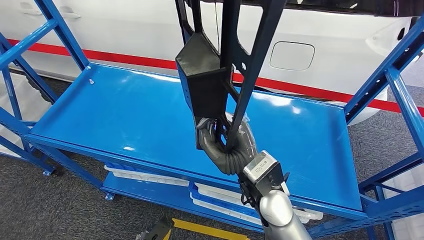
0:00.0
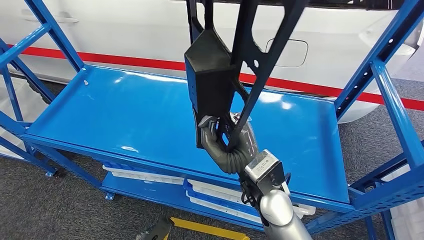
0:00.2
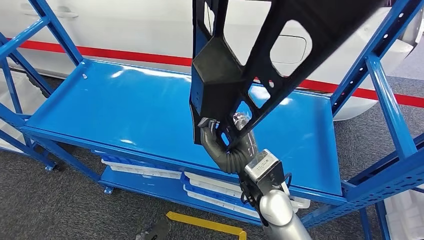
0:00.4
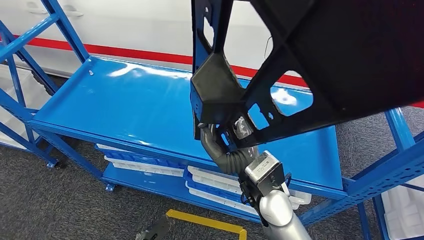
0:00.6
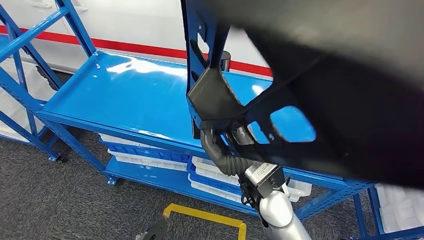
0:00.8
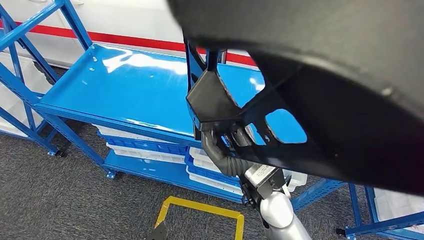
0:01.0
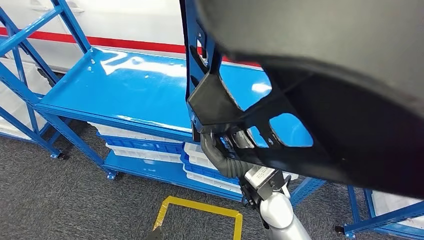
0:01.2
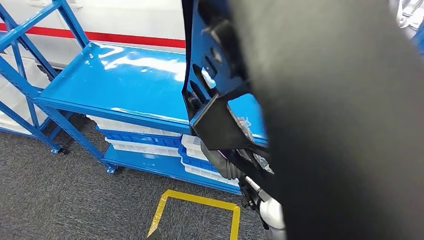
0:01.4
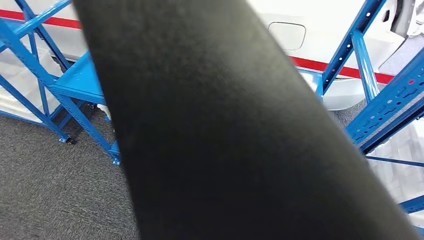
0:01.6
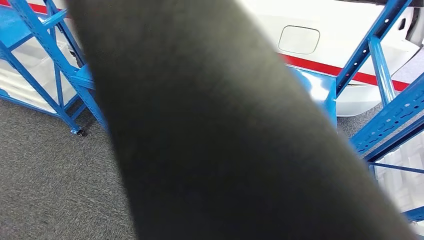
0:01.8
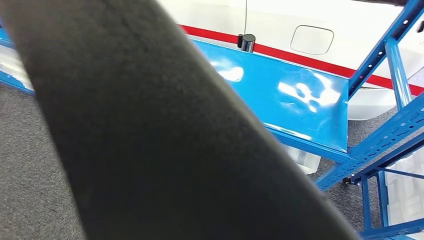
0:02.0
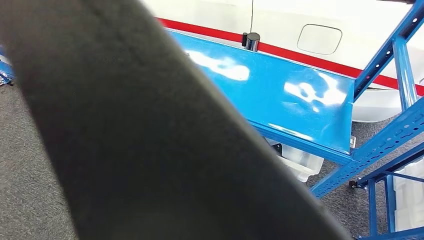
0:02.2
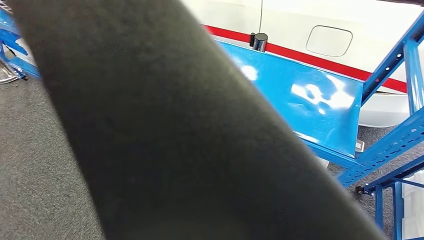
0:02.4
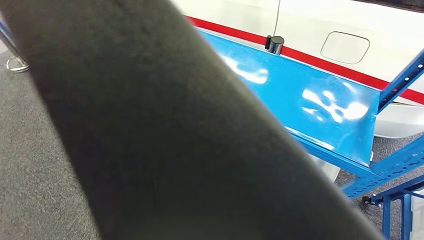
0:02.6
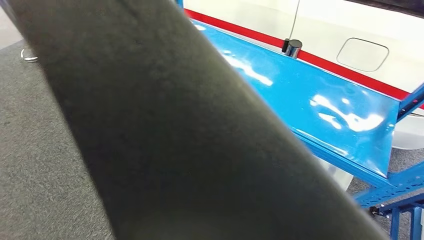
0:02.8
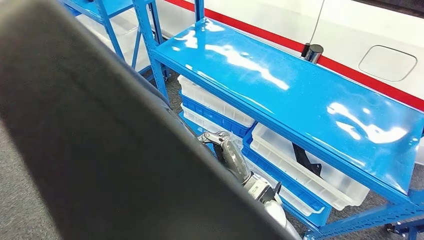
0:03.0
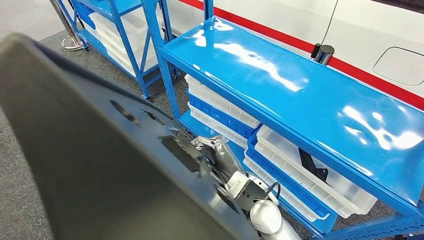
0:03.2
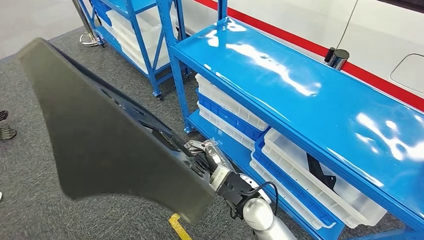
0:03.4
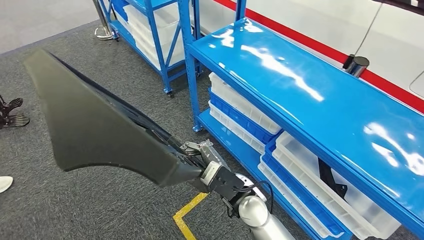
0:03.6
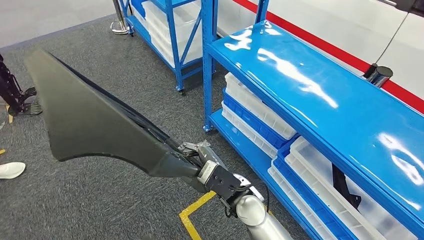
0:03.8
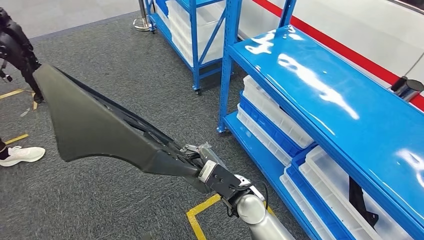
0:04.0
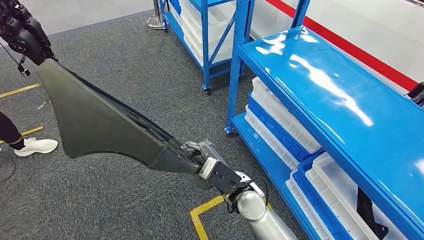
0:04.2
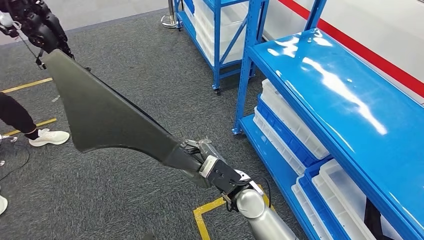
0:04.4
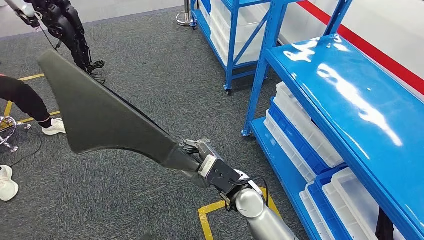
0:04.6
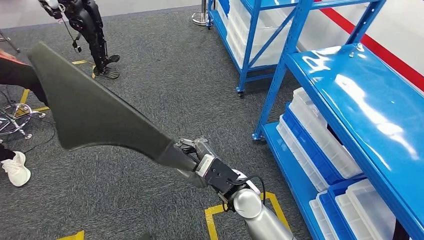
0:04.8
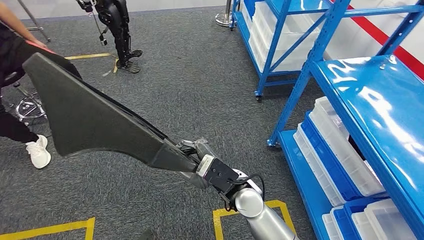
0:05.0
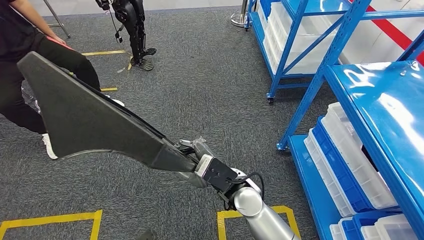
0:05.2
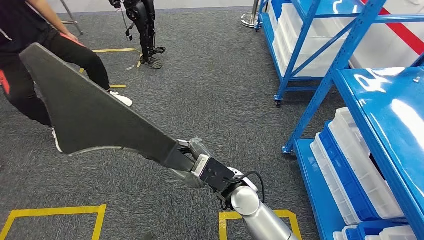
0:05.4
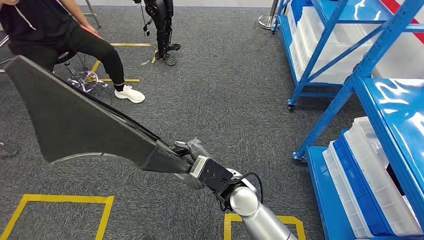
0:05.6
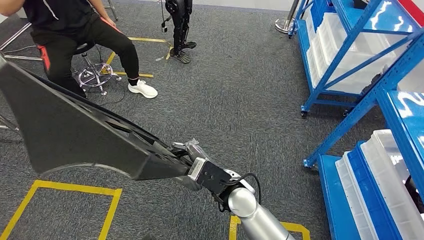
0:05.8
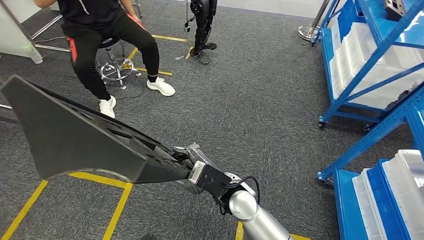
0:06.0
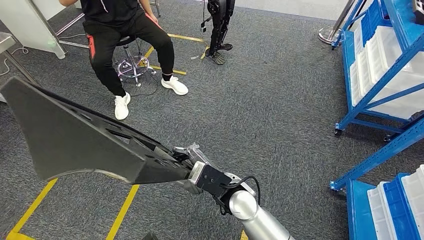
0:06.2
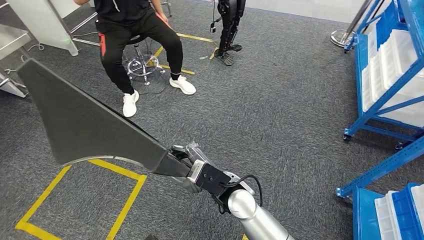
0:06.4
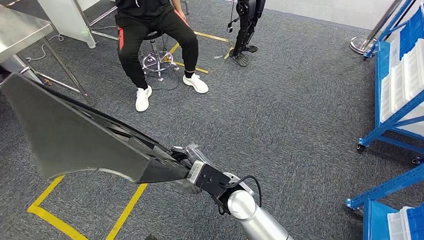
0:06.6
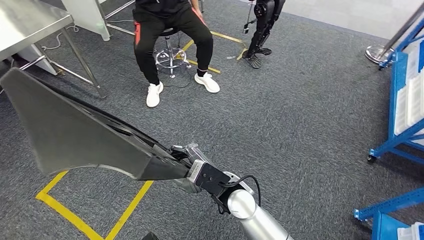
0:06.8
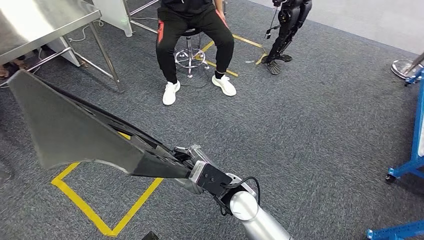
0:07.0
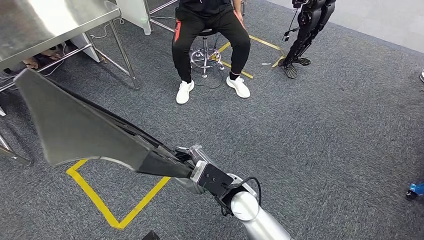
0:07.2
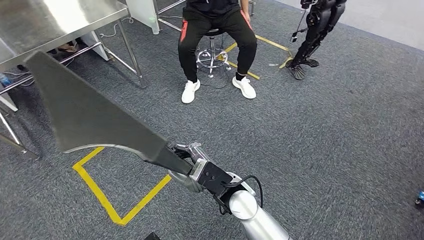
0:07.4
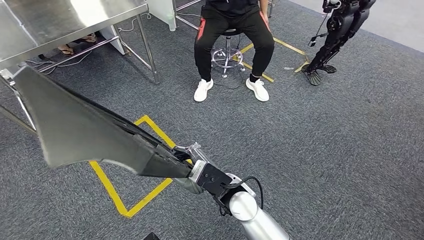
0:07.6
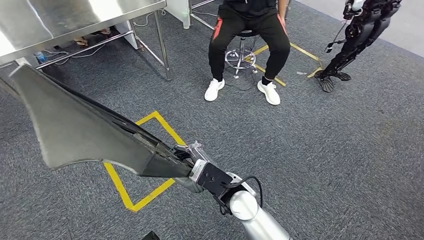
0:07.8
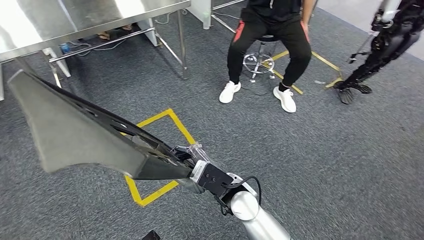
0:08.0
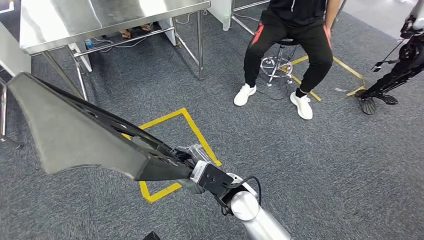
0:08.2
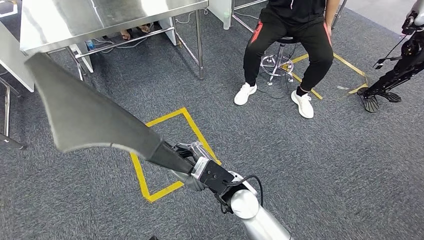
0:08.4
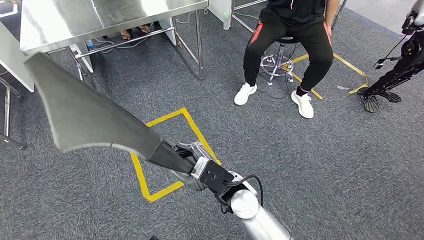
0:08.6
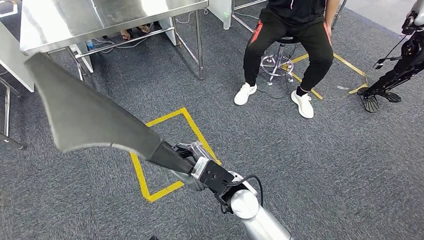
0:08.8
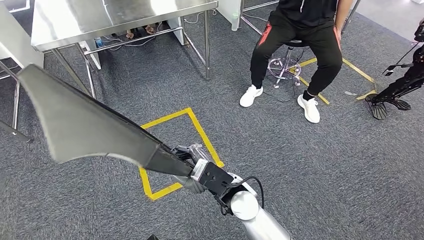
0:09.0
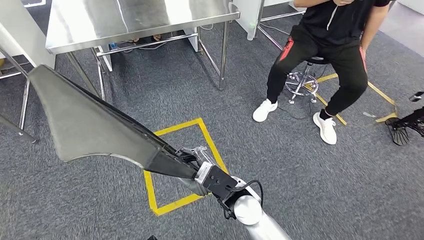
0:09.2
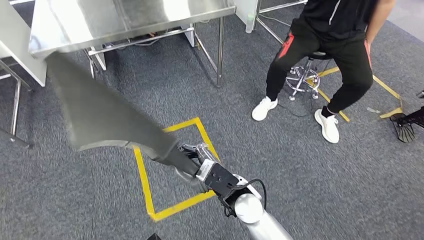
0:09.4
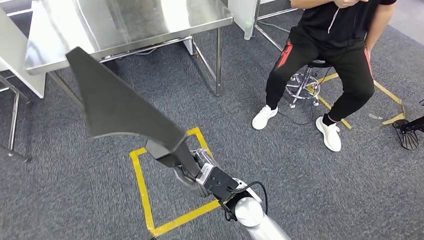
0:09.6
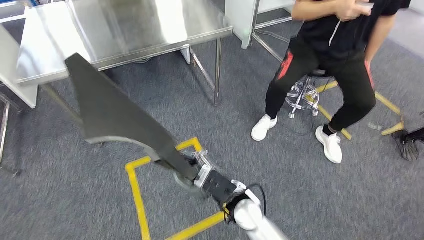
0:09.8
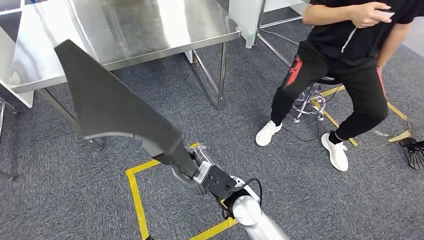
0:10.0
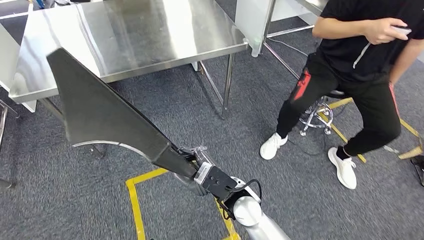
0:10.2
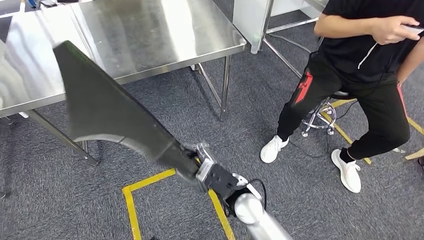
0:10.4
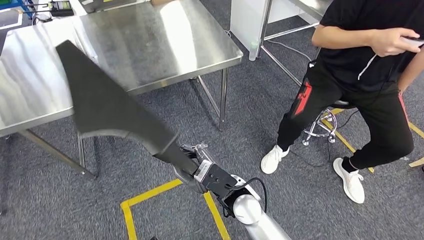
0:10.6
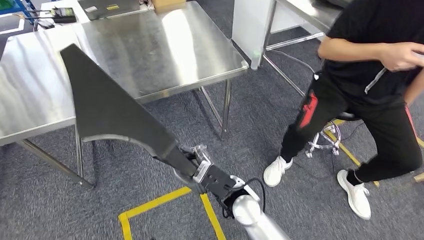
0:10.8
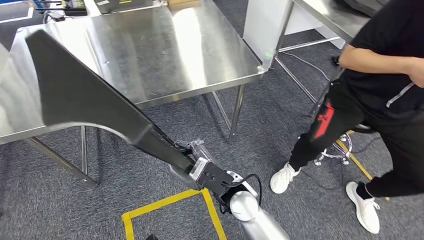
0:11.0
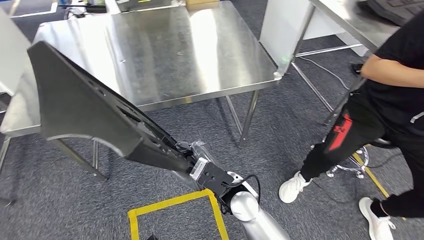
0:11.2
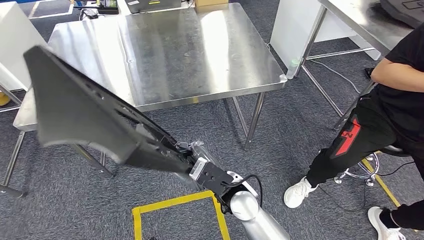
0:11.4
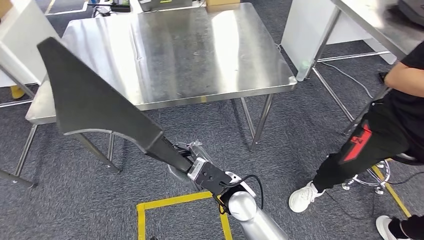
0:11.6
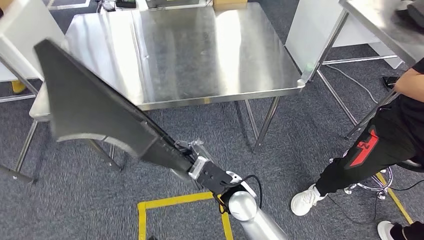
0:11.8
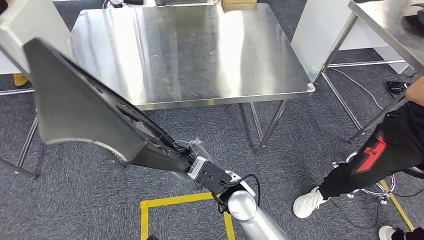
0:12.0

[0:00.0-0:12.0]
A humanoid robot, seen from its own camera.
Step, 0:00.0 to 0:02.0: Pick up the large material from the shelf.

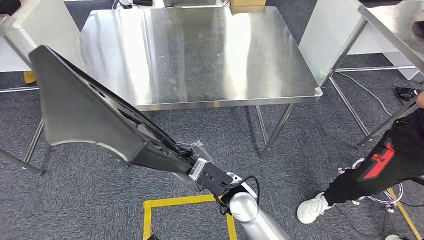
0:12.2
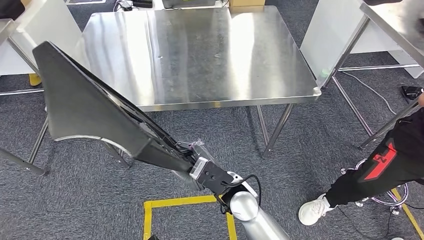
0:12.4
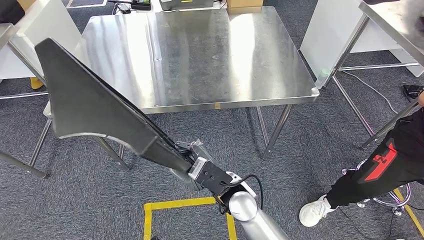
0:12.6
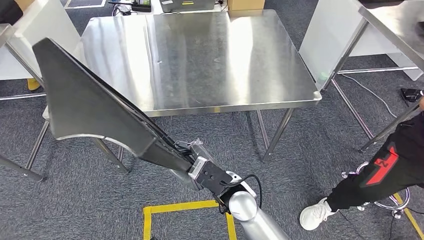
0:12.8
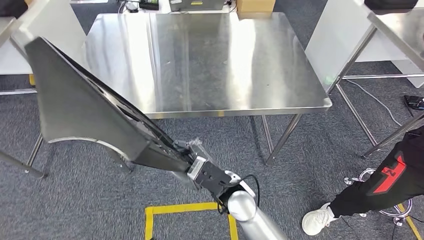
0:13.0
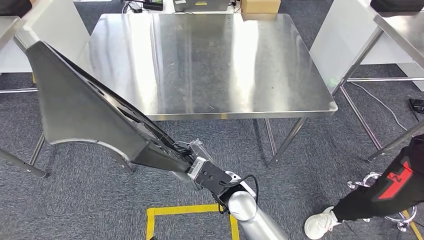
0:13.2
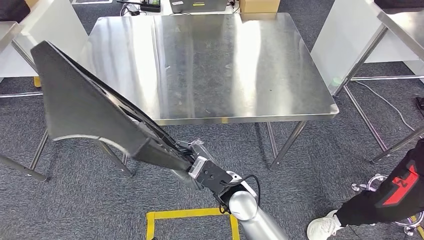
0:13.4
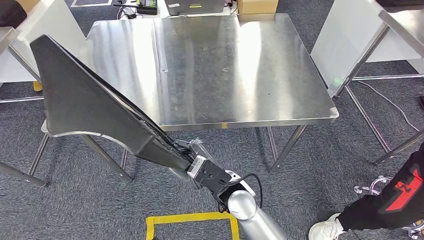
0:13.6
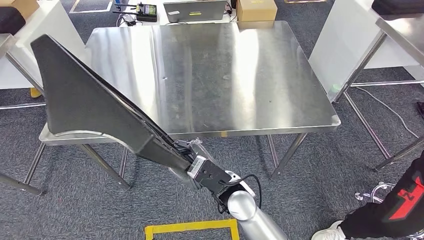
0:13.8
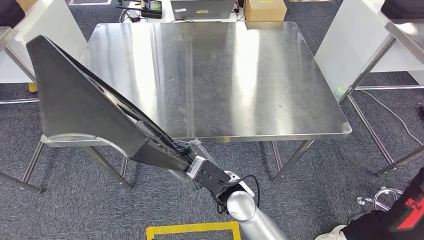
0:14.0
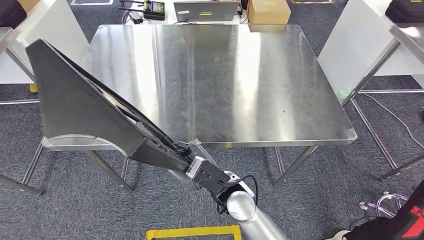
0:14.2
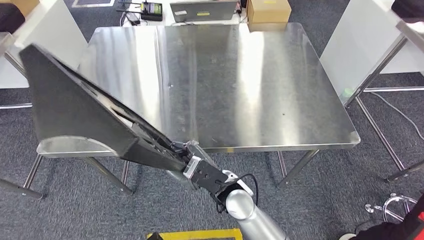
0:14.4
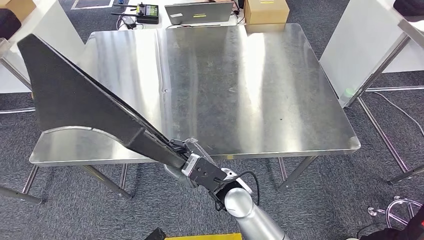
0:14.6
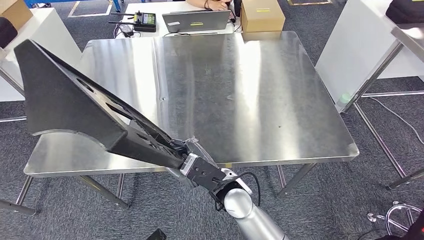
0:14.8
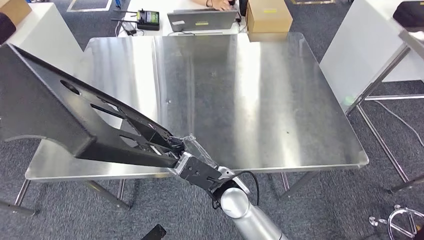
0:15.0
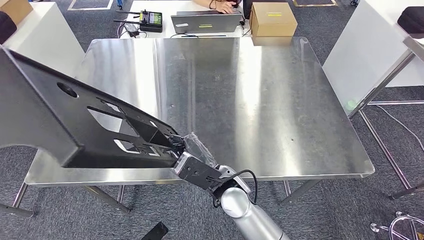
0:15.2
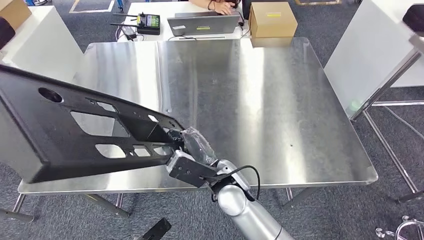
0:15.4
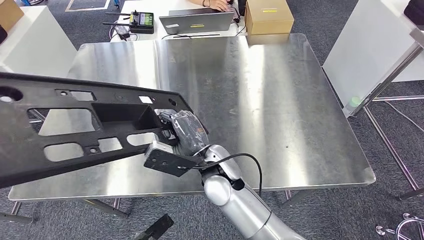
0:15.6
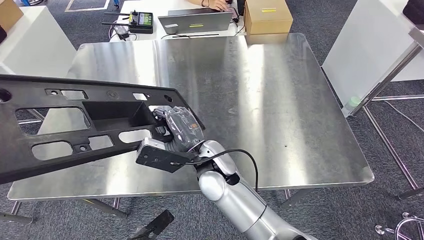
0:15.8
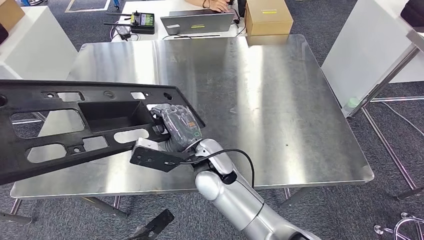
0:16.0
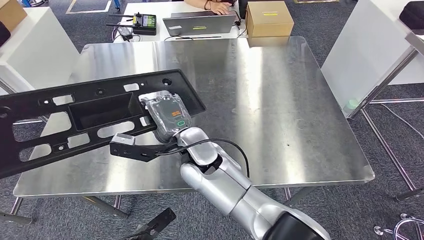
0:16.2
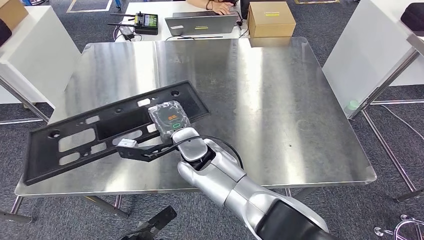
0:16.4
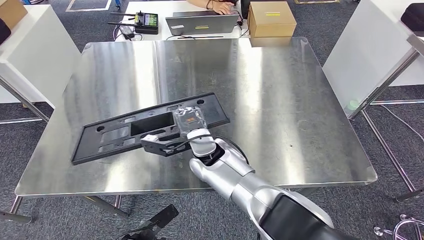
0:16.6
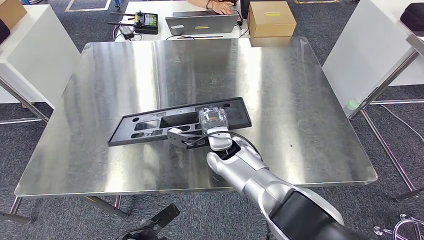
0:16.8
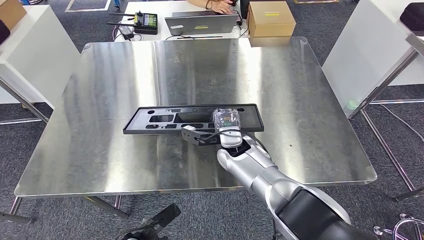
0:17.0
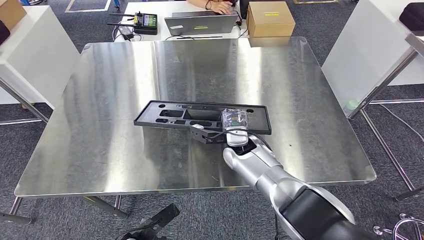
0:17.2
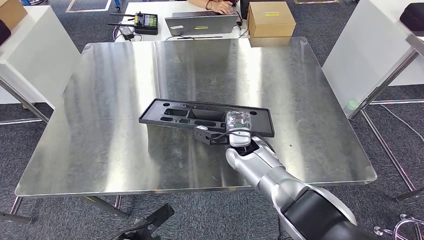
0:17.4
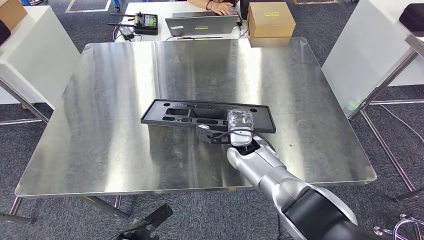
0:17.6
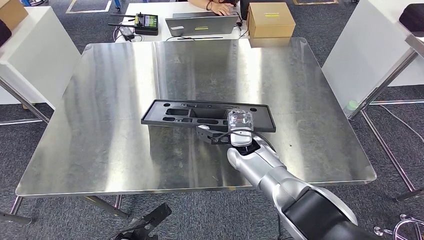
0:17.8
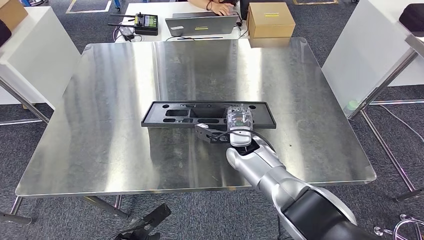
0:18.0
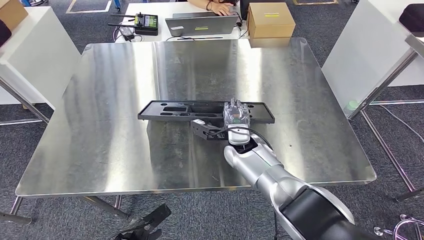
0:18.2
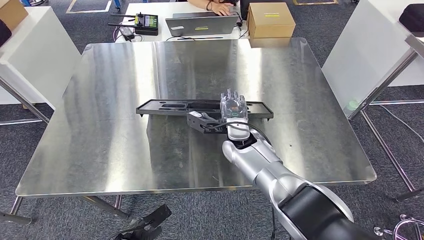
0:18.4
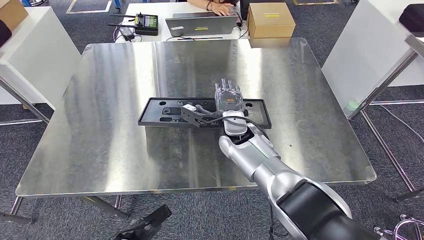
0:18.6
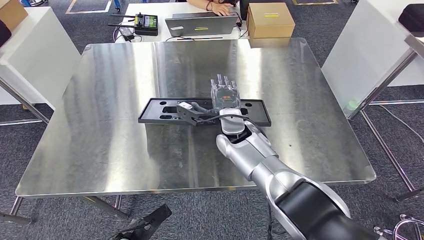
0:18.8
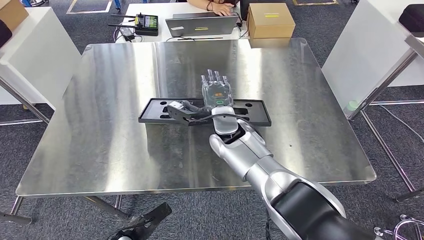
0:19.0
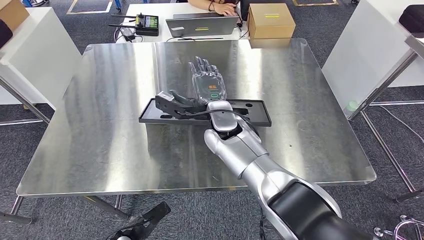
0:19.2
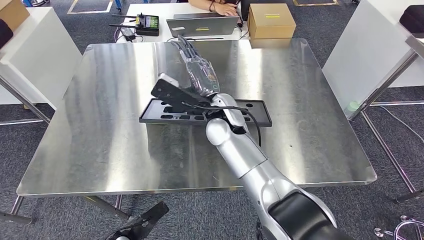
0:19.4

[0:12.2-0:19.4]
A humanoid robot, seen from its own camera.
Step, 0:12.2 to 0:15.4: Move the large material to the workbench.
0:18.0 to 0:19.4: The right hand moves upward and to the left, approximately 15 cm.
